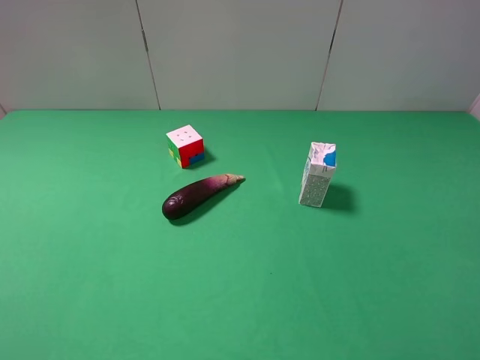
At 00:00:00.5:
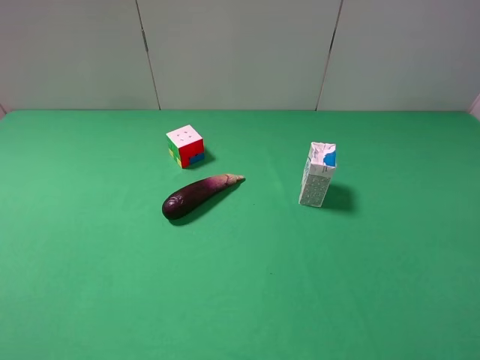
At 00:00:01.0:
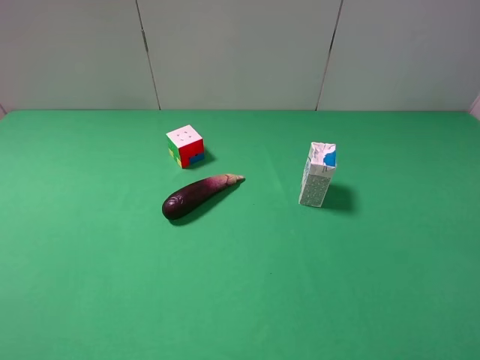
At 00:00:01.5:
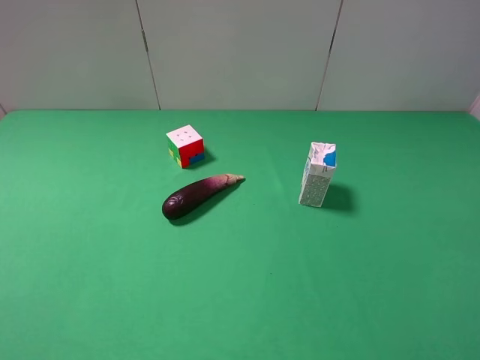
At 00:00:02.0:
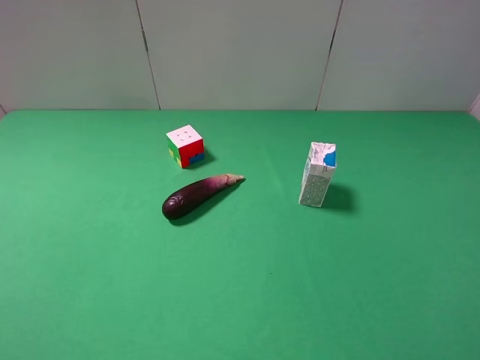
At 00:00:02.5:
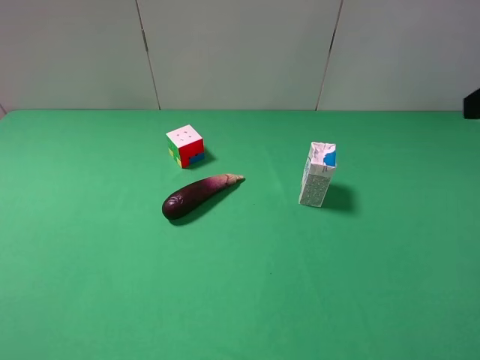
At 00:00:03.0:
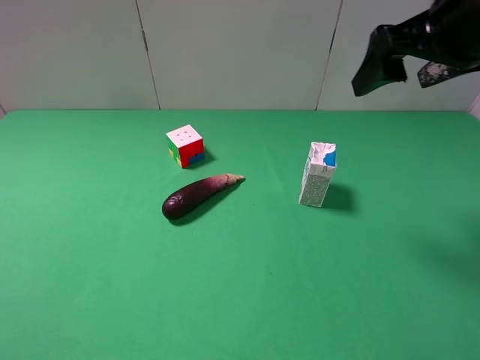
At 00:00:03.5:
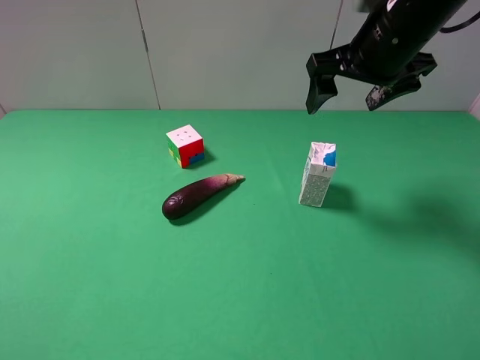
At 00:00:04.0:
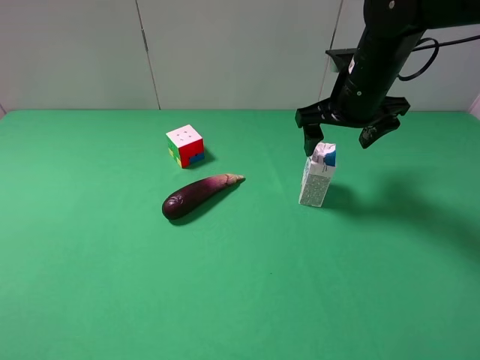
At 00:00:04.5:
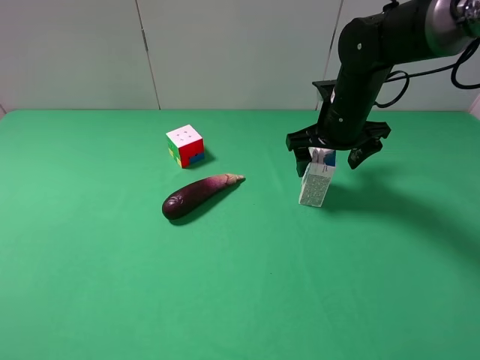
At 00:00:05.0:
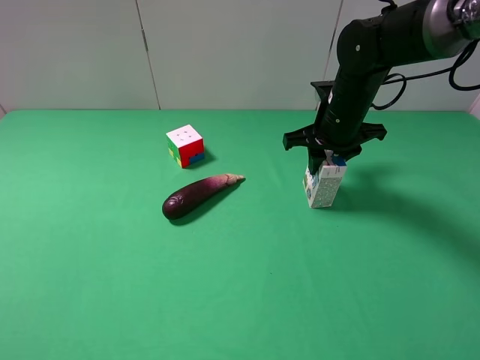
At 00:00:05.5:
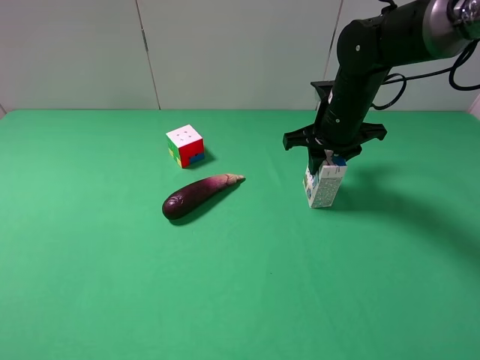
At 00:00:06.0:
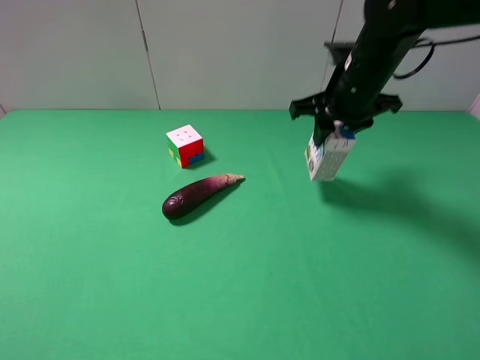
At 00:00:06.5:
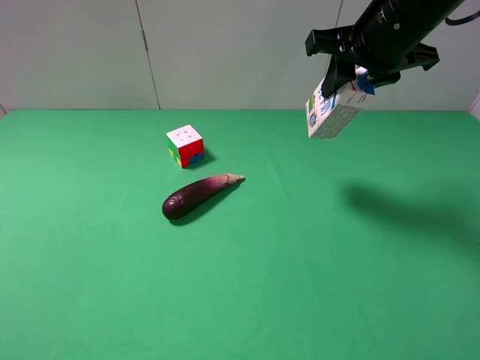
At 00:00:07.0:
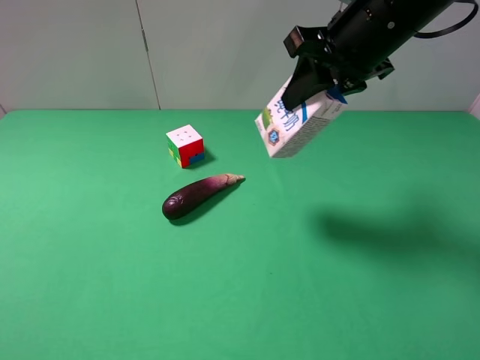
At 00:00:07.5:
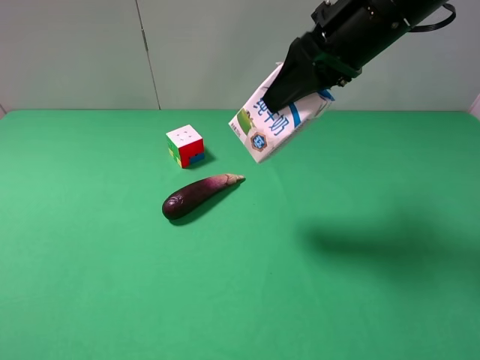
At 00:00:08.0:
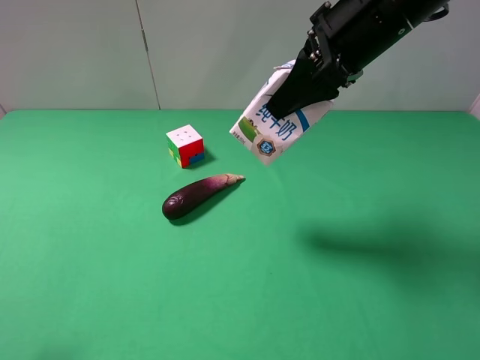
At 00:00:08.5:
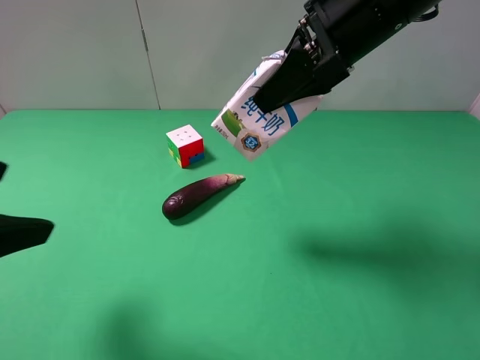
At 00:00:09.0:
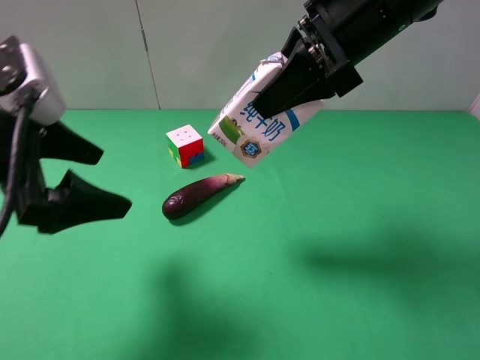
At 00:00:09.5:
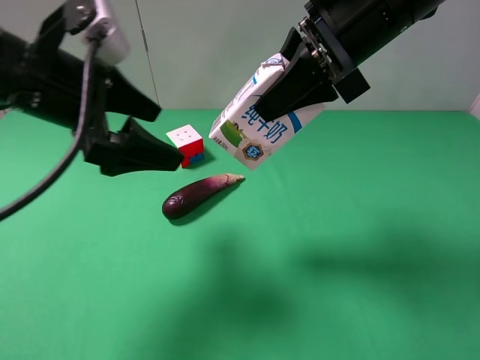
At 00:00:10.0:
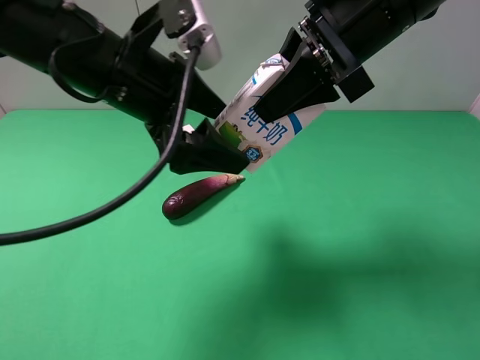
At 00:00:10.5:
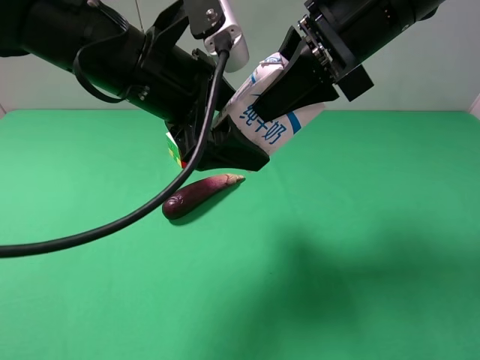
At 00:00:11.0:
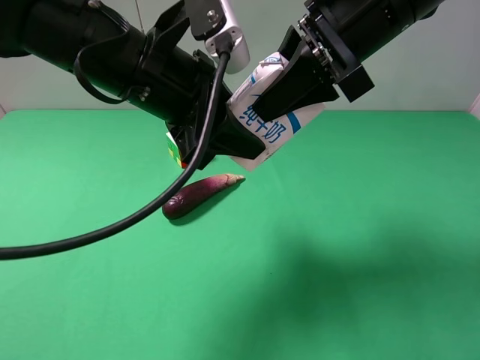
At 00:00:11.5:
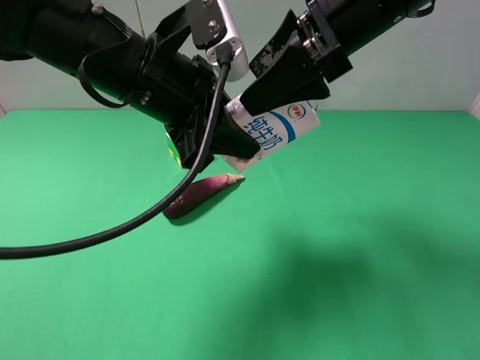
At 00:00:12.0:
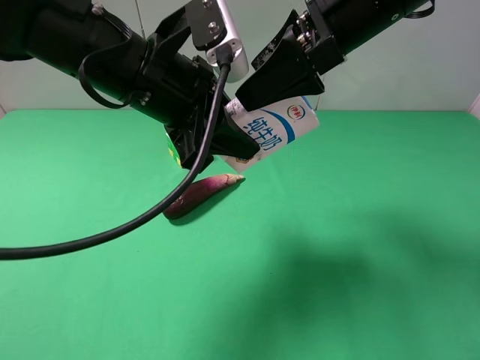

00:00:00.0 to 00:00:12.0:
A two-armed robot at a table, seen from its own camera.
Task of the whole recording: use the right gripper to pick up the item and transfer it from the right gripper to the left gripper.
Step, 00:00:05.5 to 00:00:11.5: Pass the milk to the left gripper.
00:00:02.0 to 00:00:04.0: The right gripper is displaced forward and to the left by roughly 35 cm.
00:00:04.0 to 00:00:06.0: The right gripper closes up.
00:00:06.0 to 00:00:08.0: The left gripper heads forward, covering some 5 cm. The right gripper goes roughly 10 cm upward and backward.
00:00:08.0 to 00:00:10.0: The left gripper is displaced forward and to the right by some 30 cm.
00:00:10.0 to 00:00:12.0: The right gripper opens its fingers. The left gripper closes its fingers.

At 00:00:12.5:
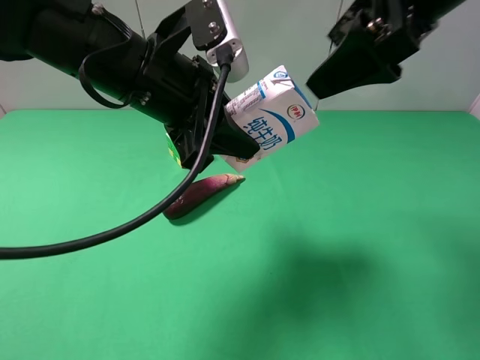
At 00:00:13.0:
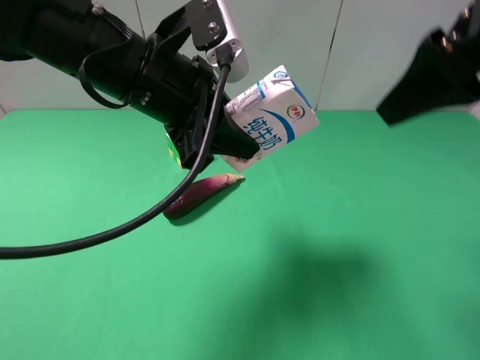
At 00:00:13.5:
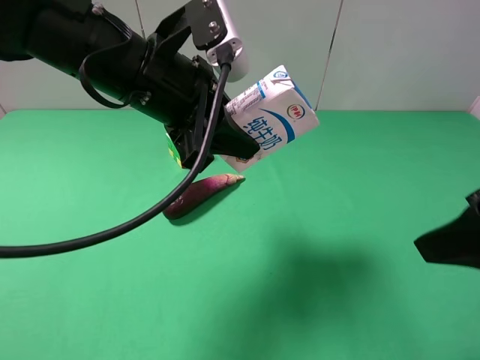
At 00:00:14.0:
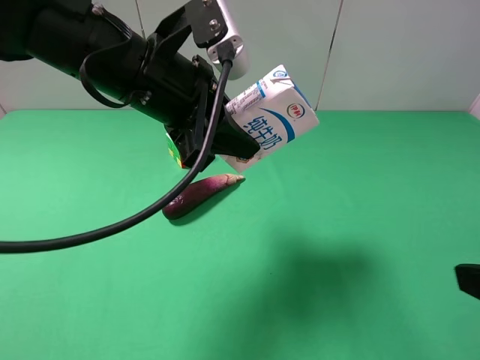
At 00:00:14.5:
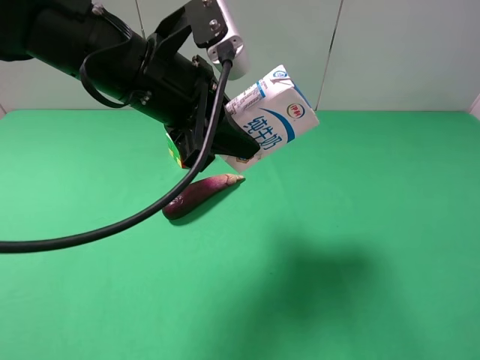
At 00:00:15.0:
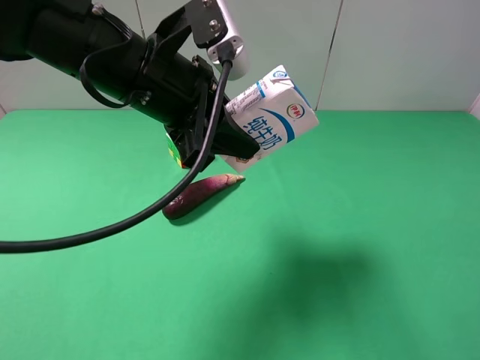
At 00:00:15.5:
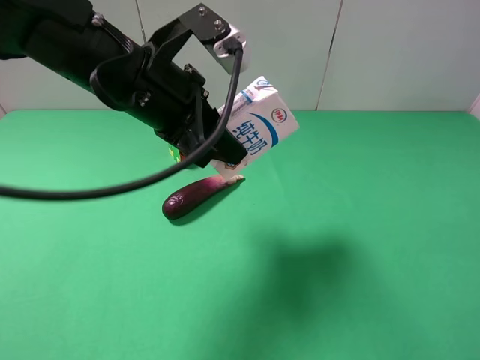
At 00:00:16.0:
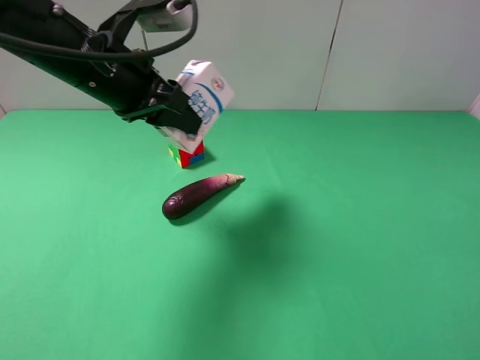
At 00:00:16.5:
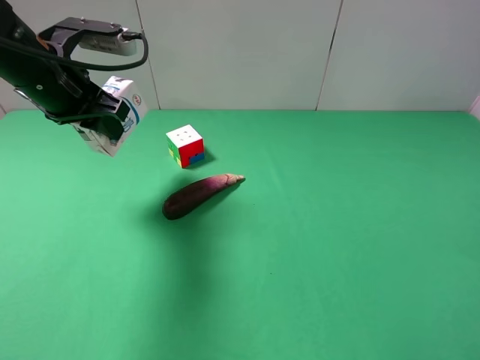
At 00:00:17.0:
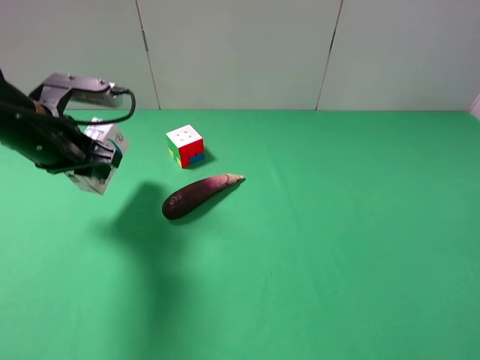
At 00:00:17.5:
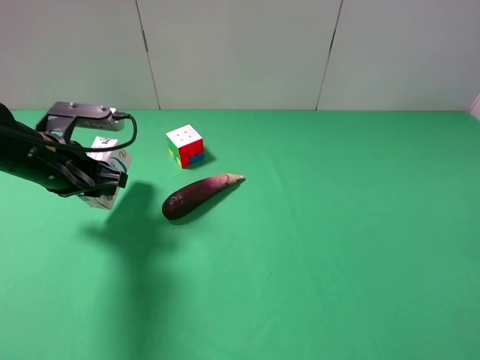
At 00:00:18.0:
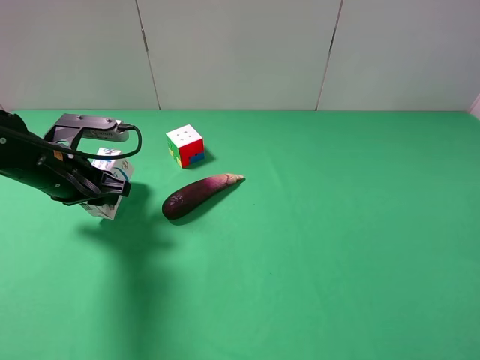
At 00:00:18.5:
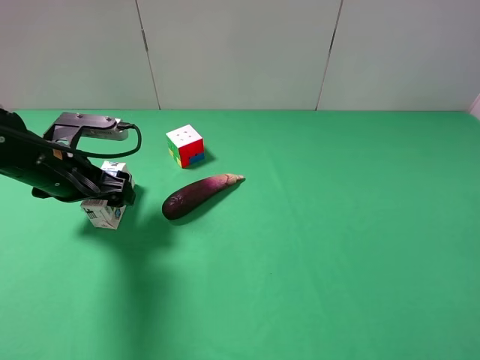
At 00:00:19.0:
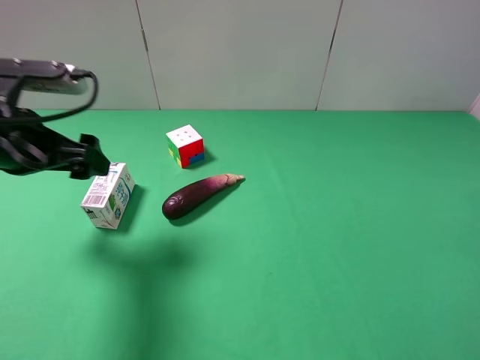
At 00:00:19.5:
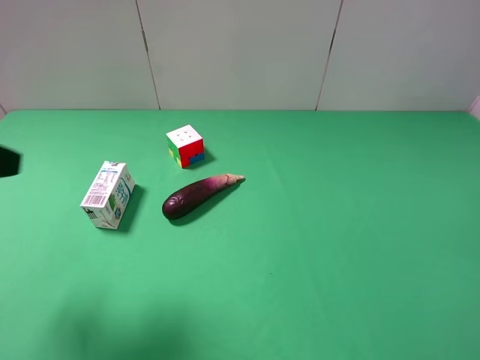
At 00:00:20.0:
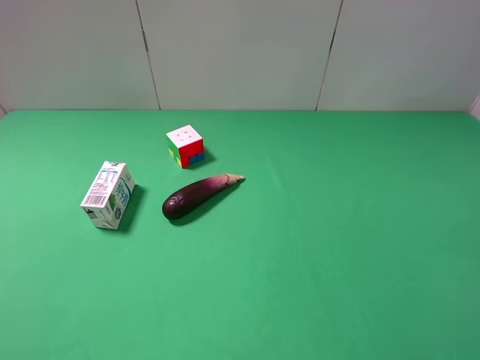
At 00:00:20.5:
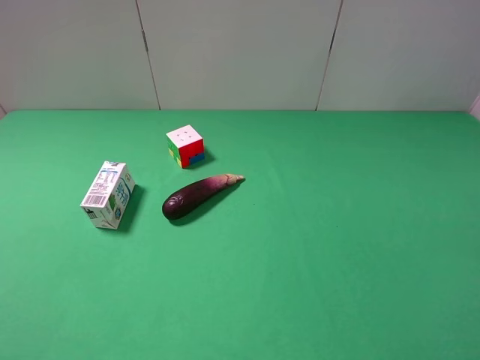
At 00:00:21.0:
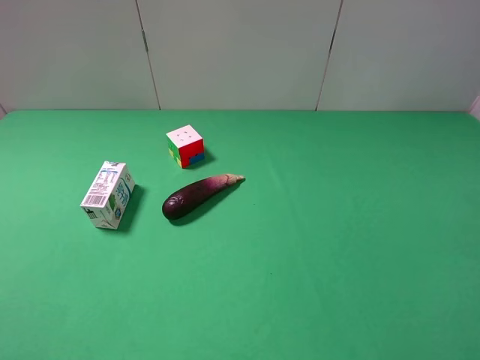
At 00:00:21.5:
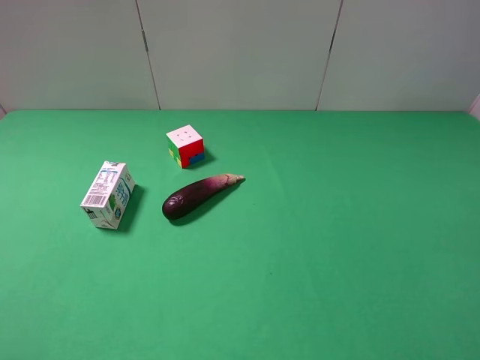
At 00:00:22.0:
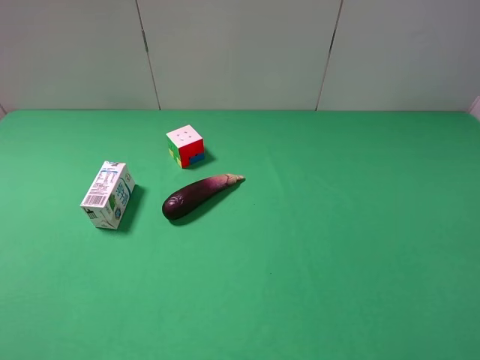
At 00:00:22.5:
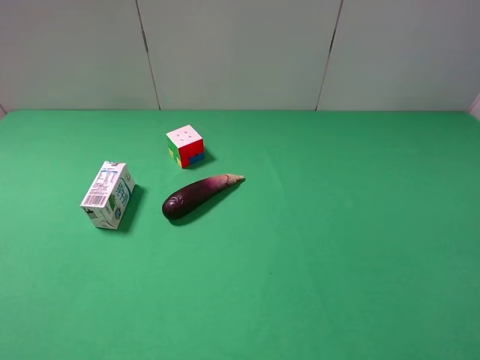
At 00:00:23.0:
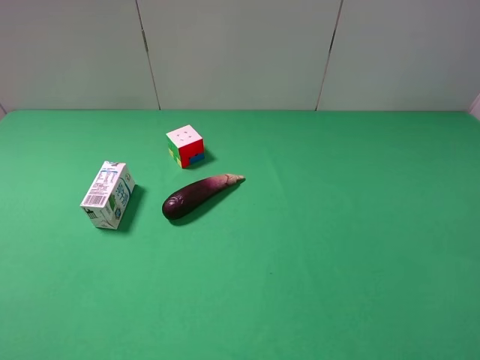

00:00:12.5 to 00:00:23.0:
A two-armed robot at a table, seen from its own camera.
Task of the whole recording: use the right gripper to pick up the item and transfer it from the right gripper to the left gripper.
Step, 00:00:12.5 to 00:00:18.5: The left gripper places milk on the left side of the table.
00:00:12.5 to 00:00:14.5: The right gripper is displaced backward, to the right and downward by approximately 25 cm.
00:00:14.5 to 00:00:16.5: The left gripper travels to the left and forward by about 15 cm.
00:00:16.5 to 00:00:19.0: The left gripper travels backward by about 10 cm, goes downward and returns, approximately 10 cm each way, and opens.
00:00:19.0 to 00:00:21.0: The left gripper goes approximately 25 cm backward.
